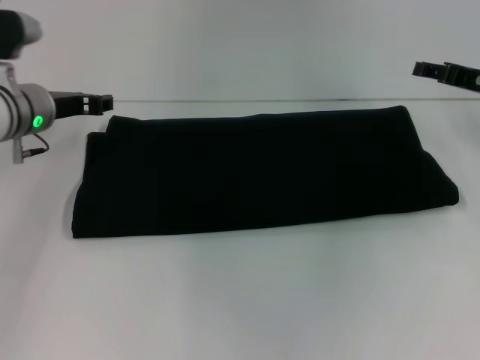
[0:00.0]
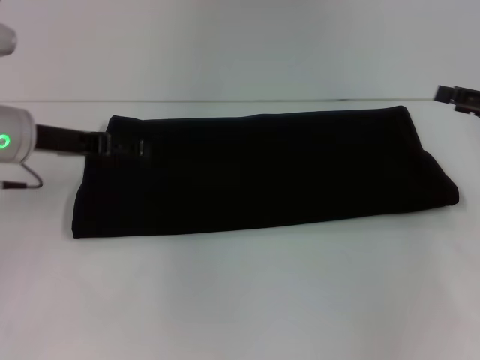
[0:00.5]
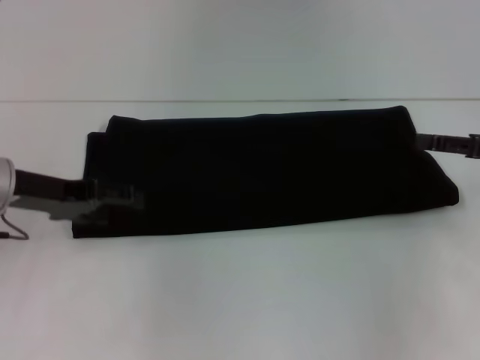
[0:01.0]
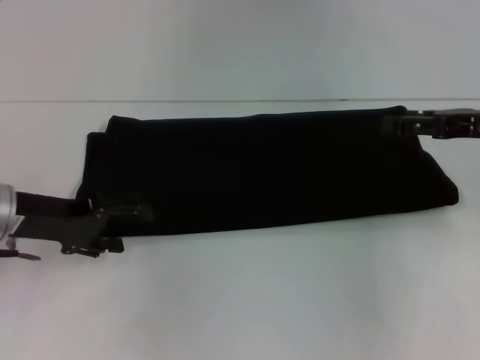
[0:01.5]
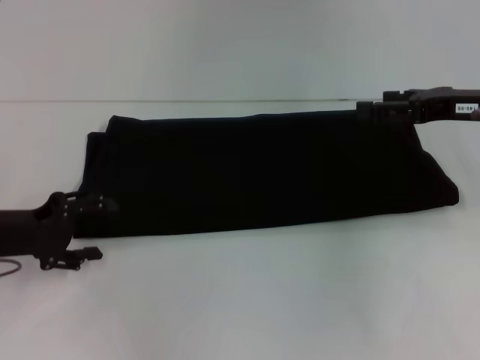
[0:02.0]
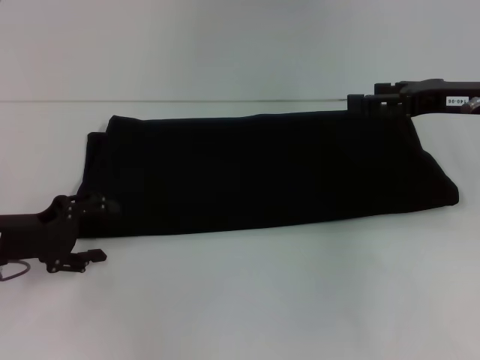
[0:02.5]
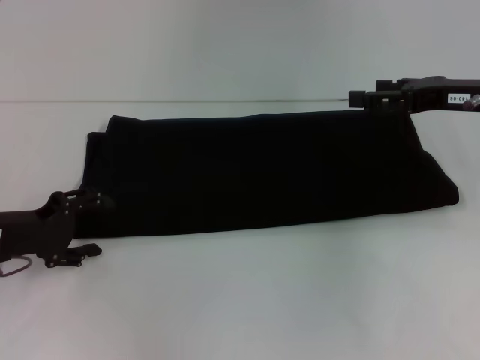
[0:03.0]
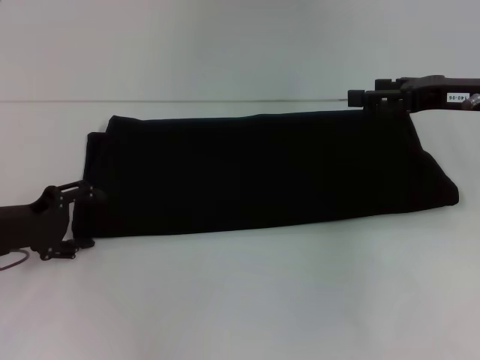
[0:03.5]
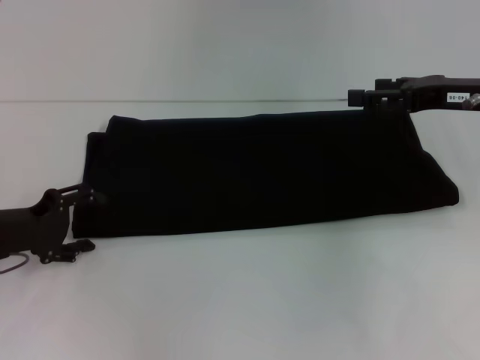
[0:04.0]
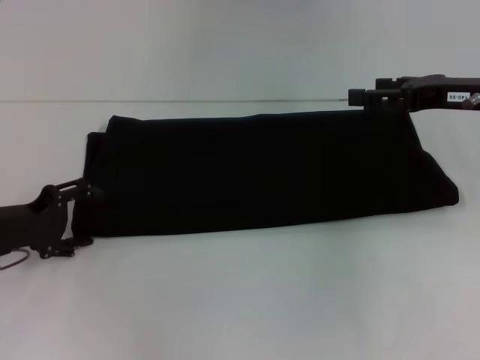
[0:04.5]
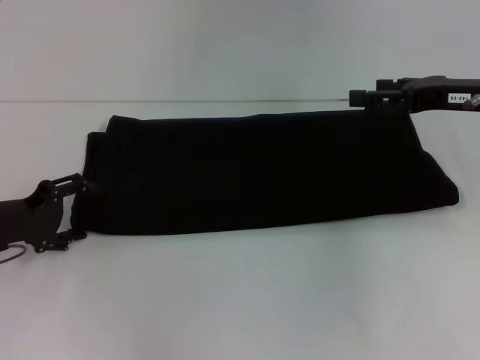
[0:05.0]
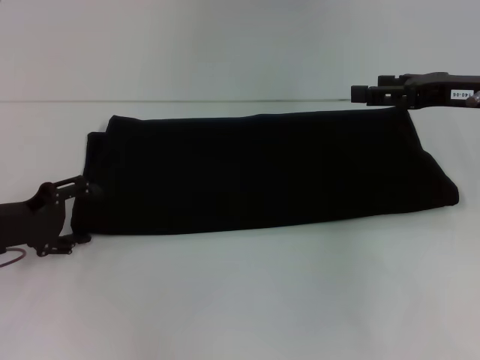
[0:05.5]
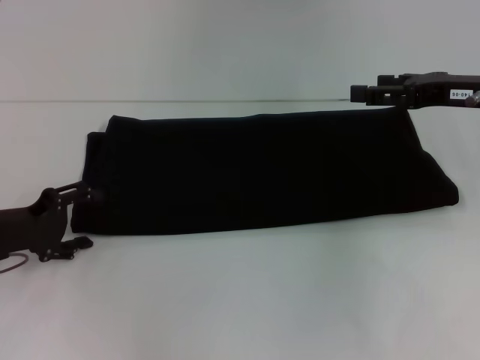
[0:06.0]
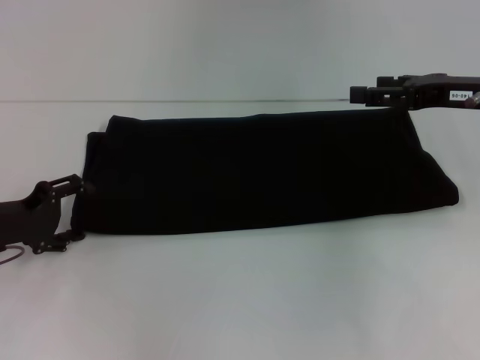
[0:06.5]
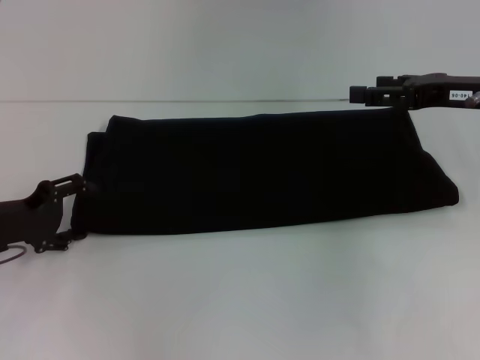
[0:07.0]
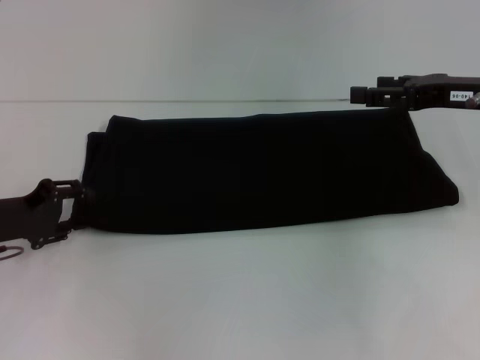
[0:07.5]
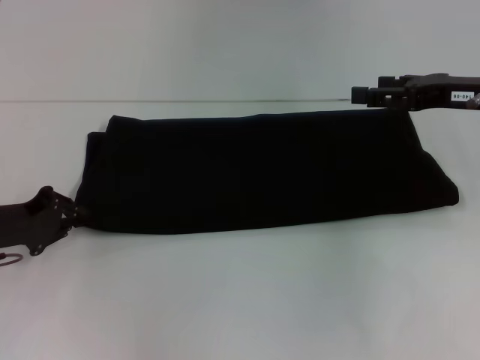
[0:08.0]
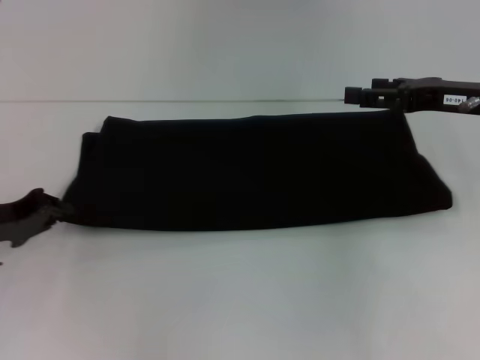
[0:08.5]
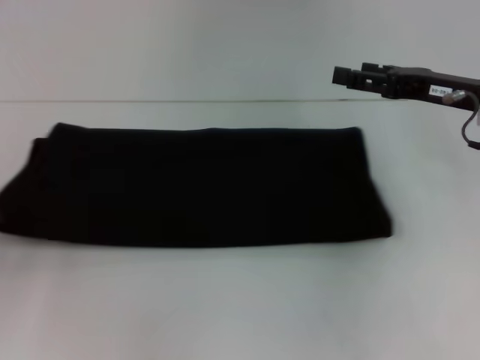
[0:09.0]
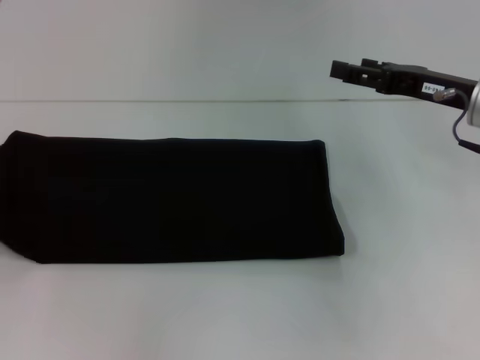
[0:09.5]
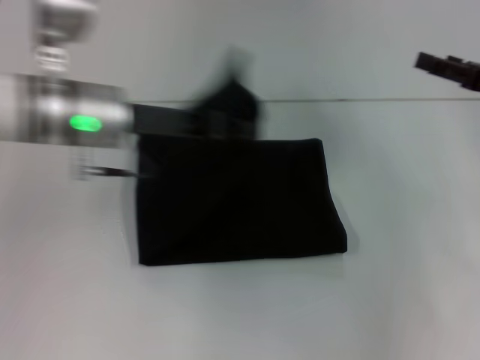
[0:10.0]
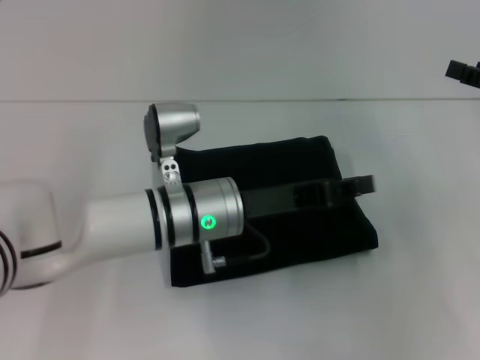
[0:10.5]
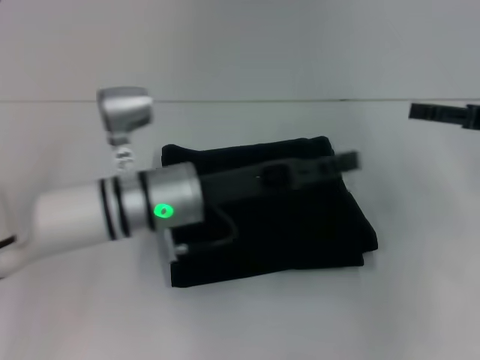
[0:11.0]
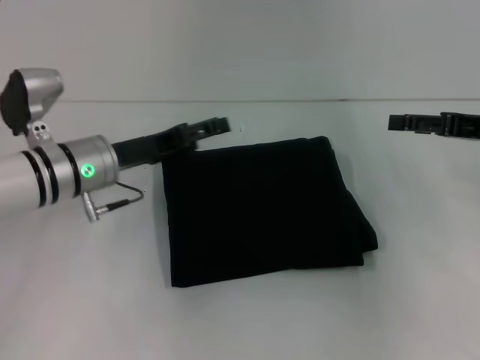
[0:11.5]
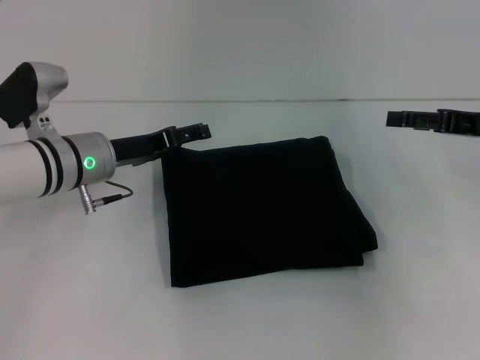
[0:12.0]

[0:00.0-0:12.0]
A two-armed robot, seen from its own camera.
Step, 0.0 to 10.0 s: Fold the clothes with your left hand.
0.0 to 2.0 s: The left gripper shifts about 15 cm backward and to the left, and opens. The right gripper opens up.
2.0 to 6.0 s: There are only small adjustments of the grippers.
6.0 to 8.0 s: The left gripper closes up.
8.0 to 10.0 s: The left gripper heads to the right, upward and forward, covering some 20 cm. Meanwhile the right gripper is displaced to the right by approximately 5 cm.
10.0 to 12.0 s: The left gripper goes roughly 10 cm downward, travels to the right and back again, some 10 cm each way, and opens up.

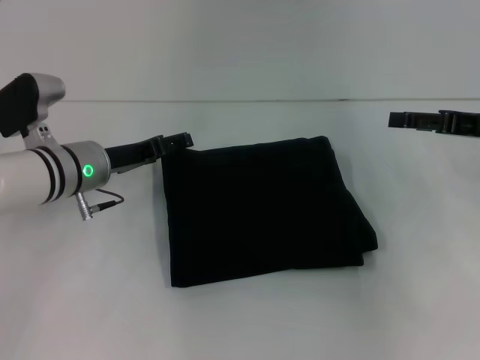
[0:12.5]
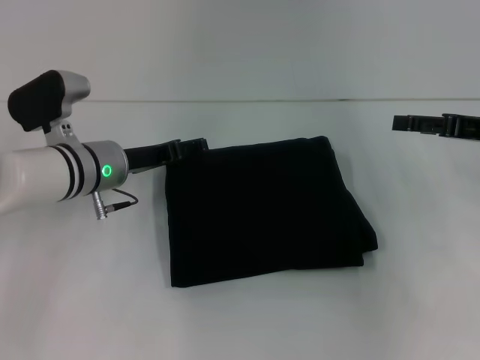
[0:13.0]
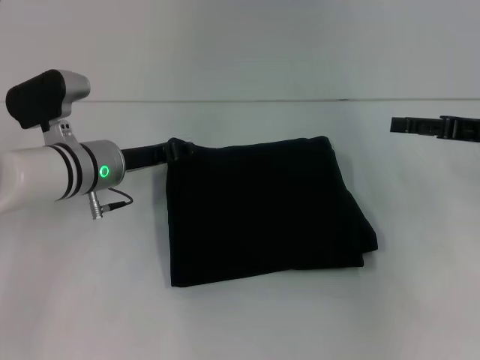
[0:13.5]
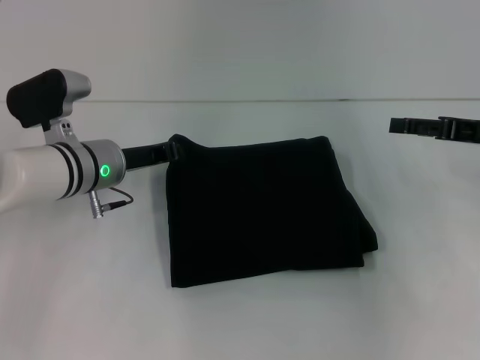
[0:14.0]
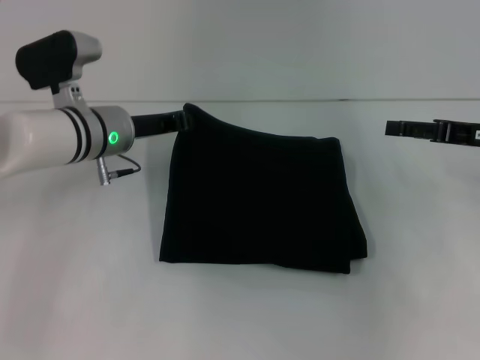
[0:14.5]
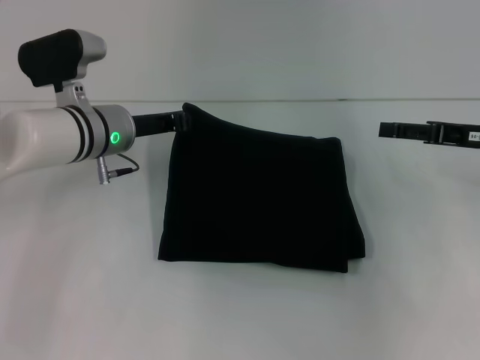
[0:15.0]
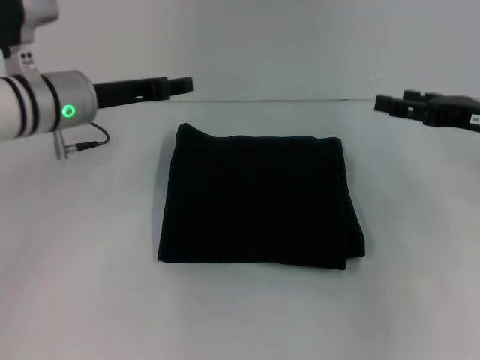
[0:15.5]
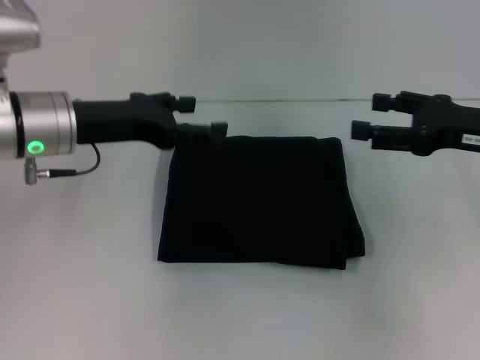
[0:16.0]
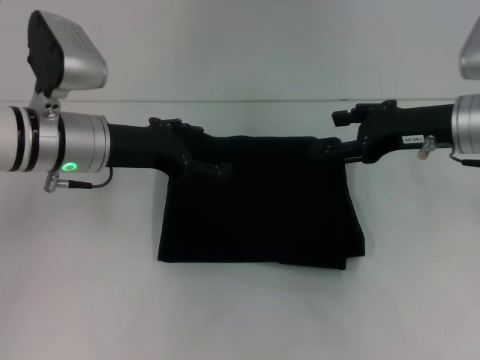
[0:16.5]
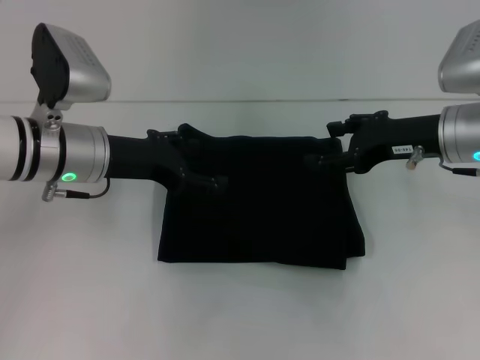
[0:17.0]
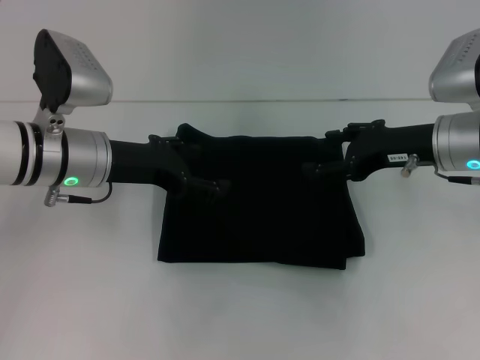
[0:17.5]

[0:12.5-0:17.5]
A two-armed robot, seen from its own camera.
12.5 to 15.0 s: The left gripper moves about 5 cm, and closes up.
15.0 to 17.5 s: The right gripper moves to the left, about 10 cm. Meanwhile the left gripper is displaced backward by about 5 cm, and opens.

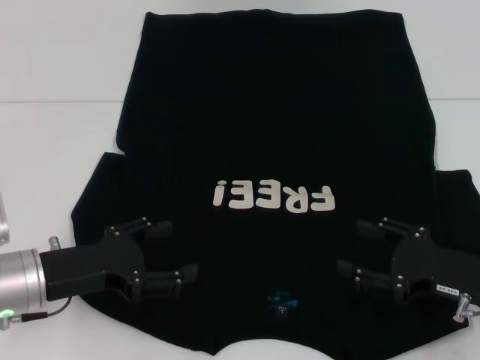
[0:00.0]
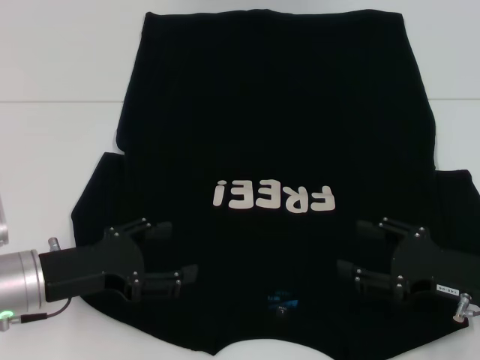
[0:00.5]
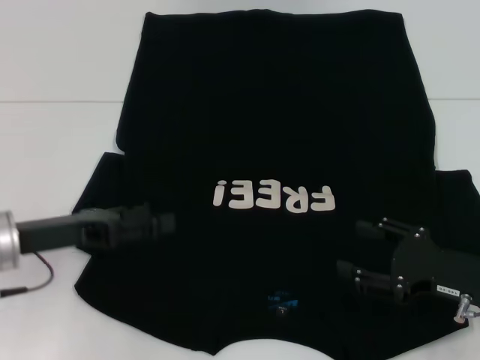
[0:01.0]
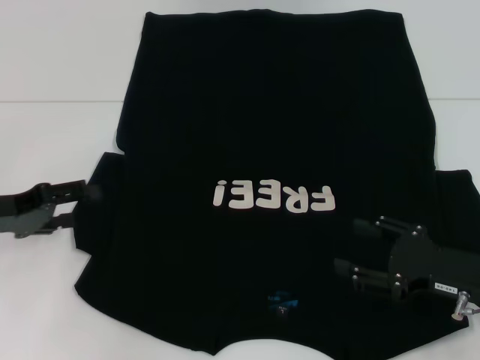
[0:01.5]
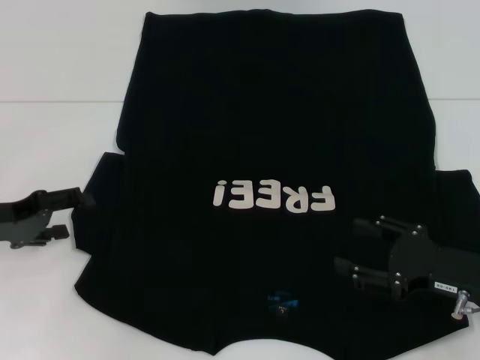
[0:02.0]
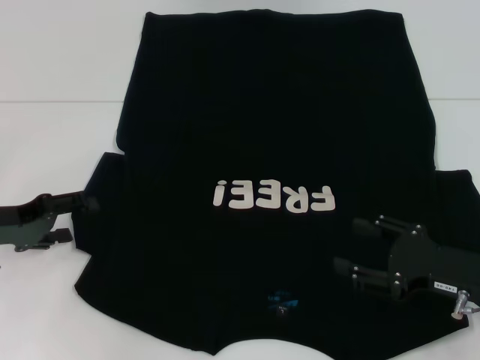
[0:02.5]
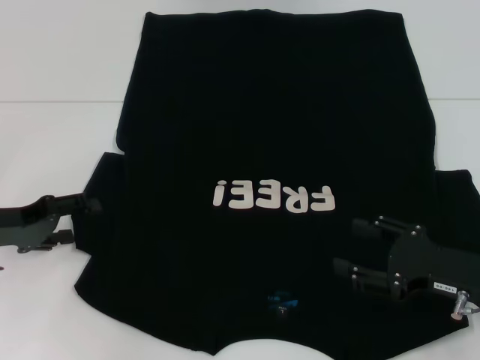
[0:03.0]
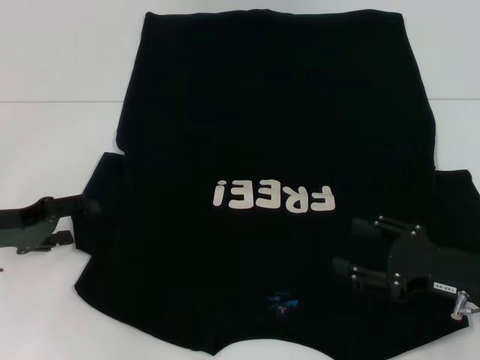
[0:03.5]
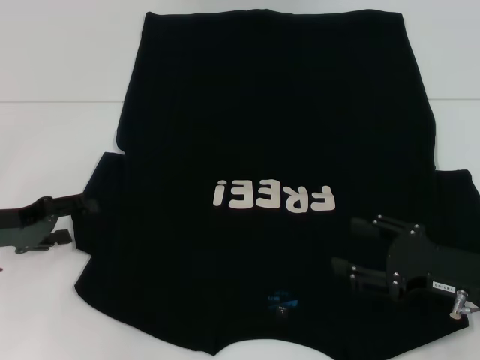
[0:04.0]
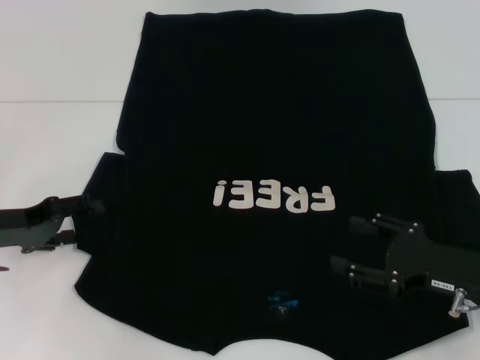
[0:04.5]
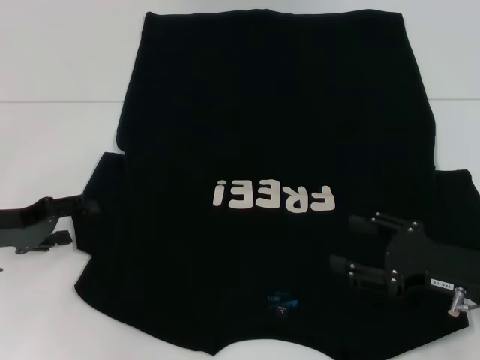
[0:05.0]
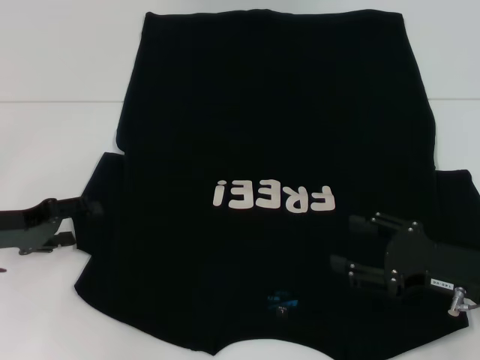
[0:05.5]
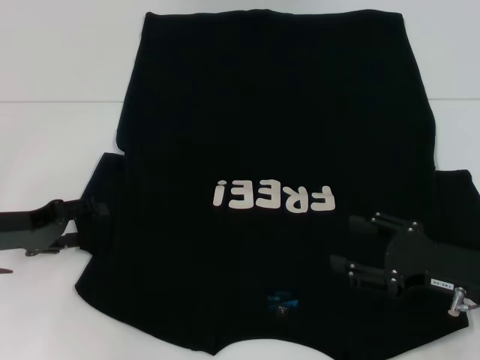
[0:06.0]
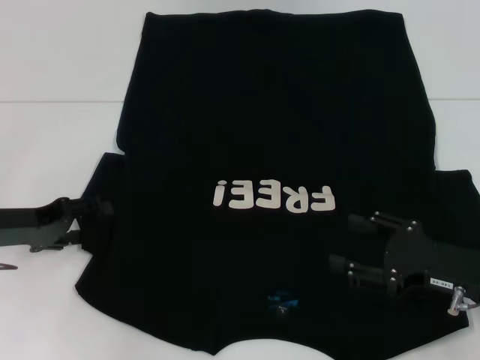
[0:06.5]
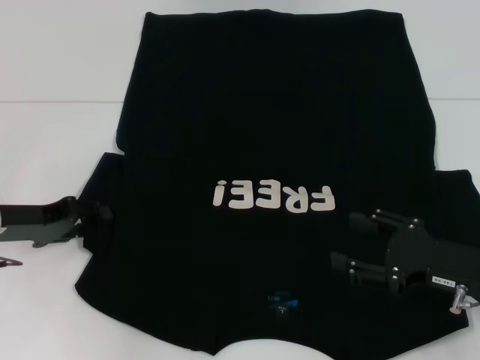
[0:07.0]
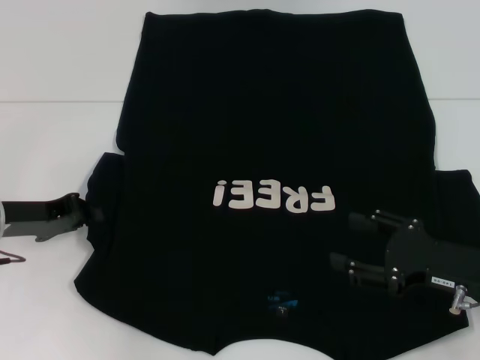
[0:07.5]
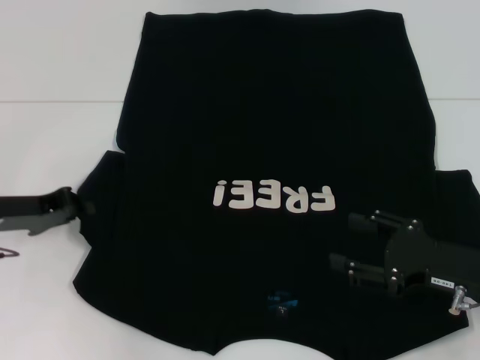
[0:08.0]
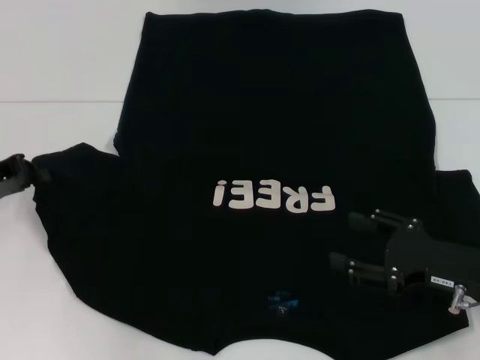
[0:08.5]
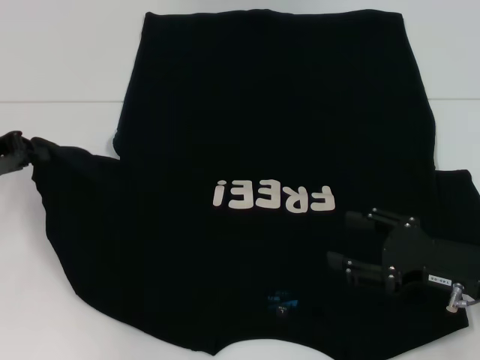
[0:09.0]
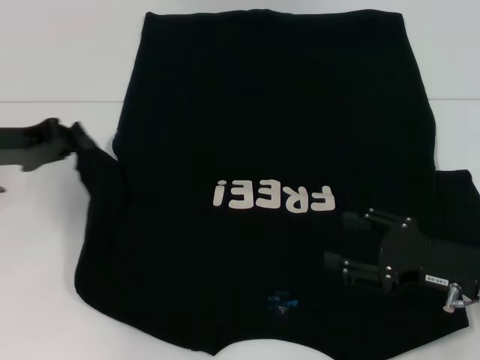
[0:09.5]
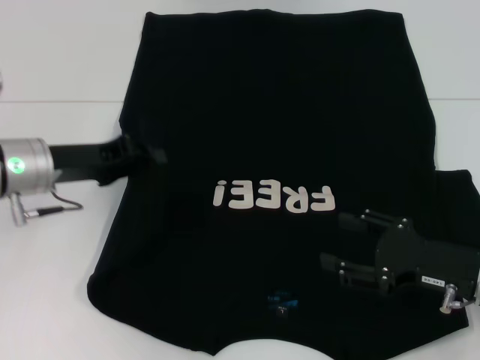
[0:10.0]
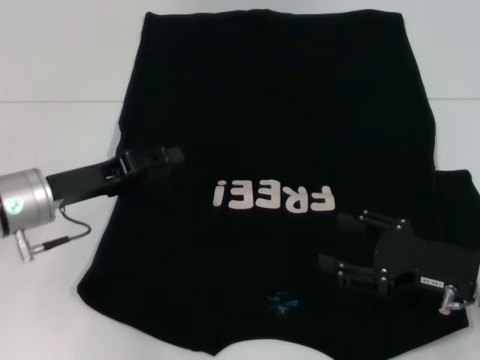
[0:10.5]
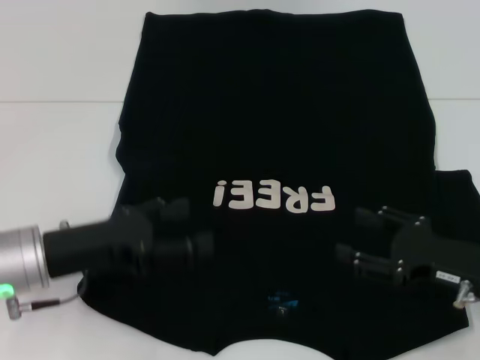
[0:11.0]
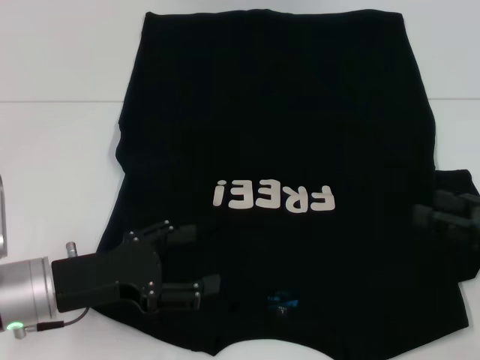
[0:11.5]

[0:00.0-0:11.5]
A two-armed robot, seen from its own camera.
Step, 0.0 to 10.5 s: Fold the bottom left sleeve with your left hand.
0.0 to 2.0 s: The left gripper shifts approximately 10 cm to the left.
2.0 to 4.0 s: Neither gripper changes place.
4.0 to 6.0 s: Both grippers stay put.
6.0 to 7.5 s: The left gripper closes up.
7.5 to 9.5 s: The left gripper moves upward, some 5 cm.
9.5 to 11.5 s: The left gripper shifts about 15 cm backward, to the right and downward, and opens, while the right gripper goes some 10 cm to the right.
